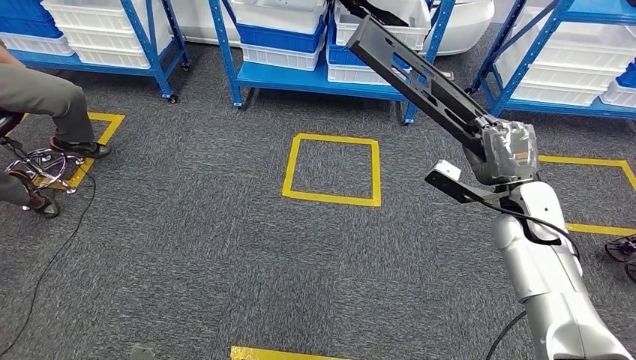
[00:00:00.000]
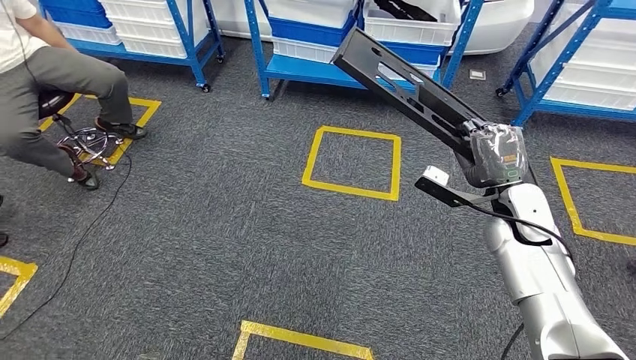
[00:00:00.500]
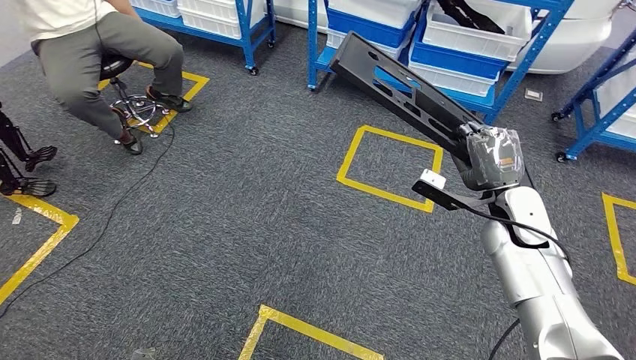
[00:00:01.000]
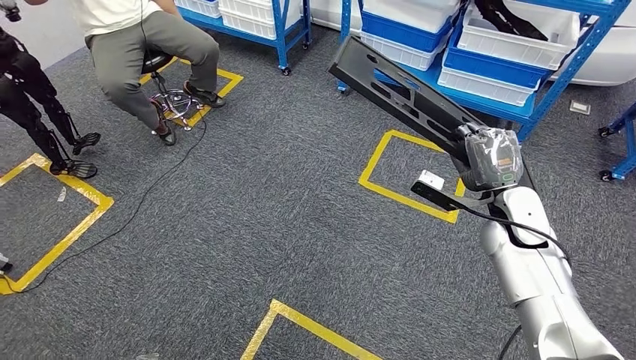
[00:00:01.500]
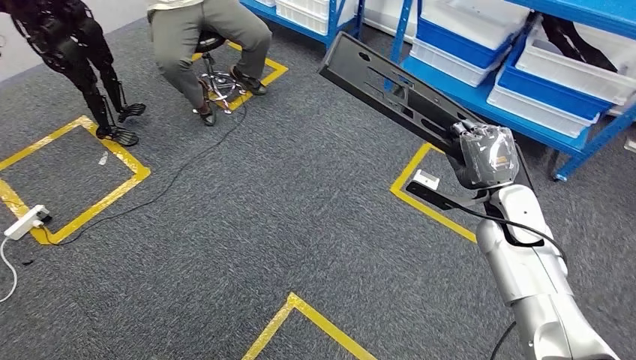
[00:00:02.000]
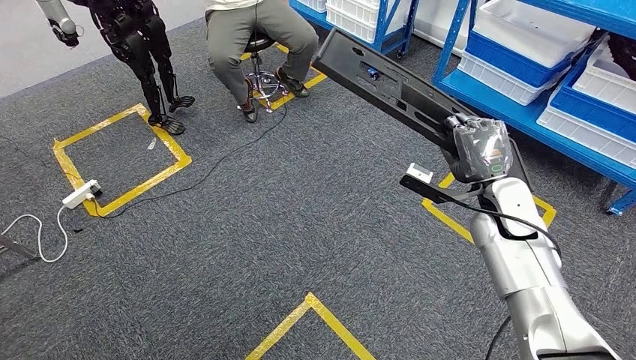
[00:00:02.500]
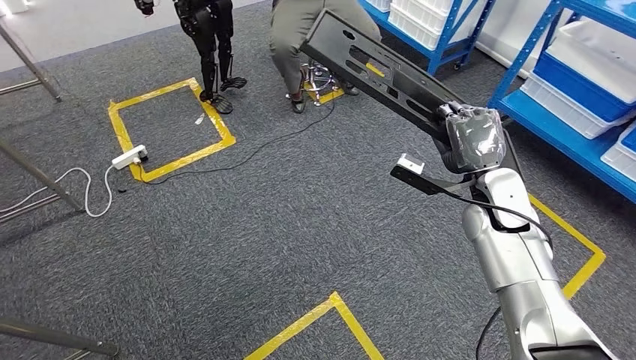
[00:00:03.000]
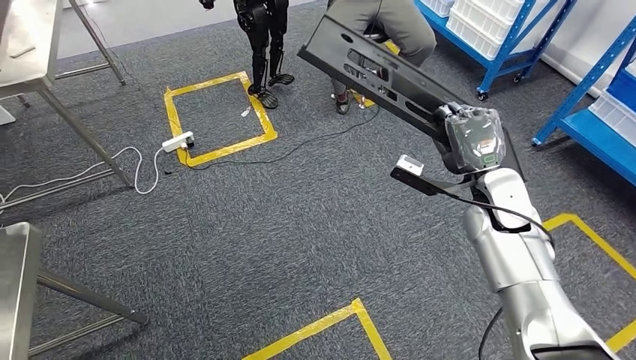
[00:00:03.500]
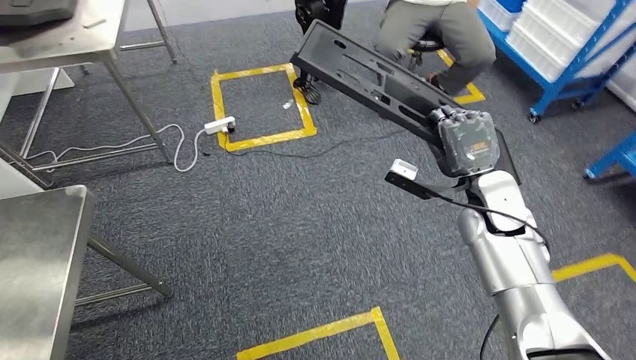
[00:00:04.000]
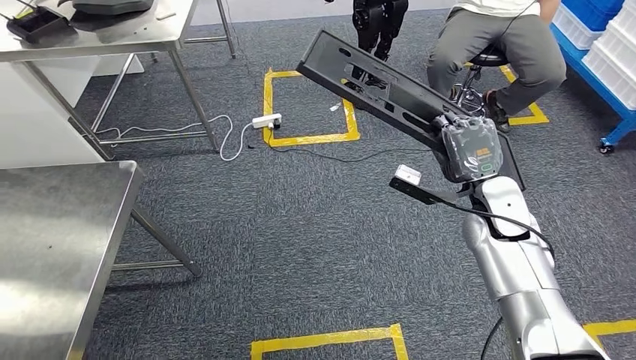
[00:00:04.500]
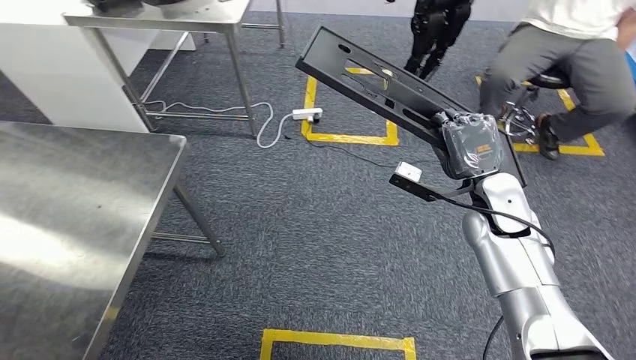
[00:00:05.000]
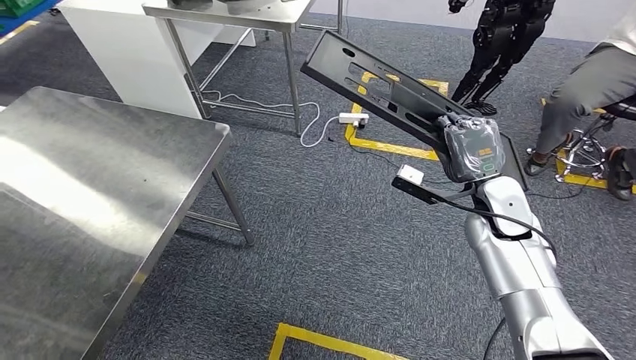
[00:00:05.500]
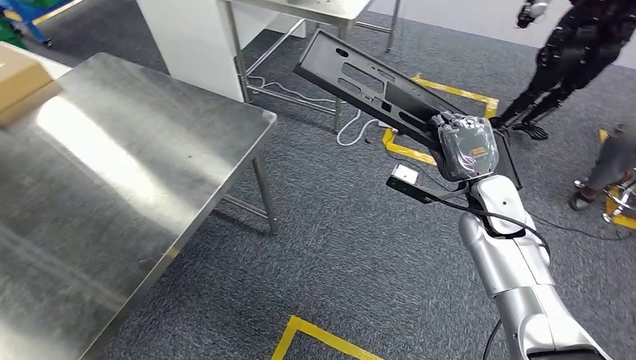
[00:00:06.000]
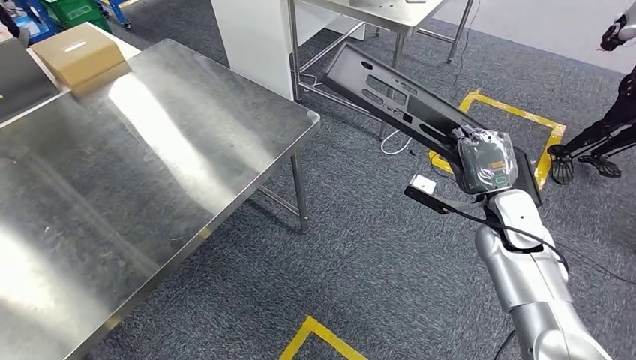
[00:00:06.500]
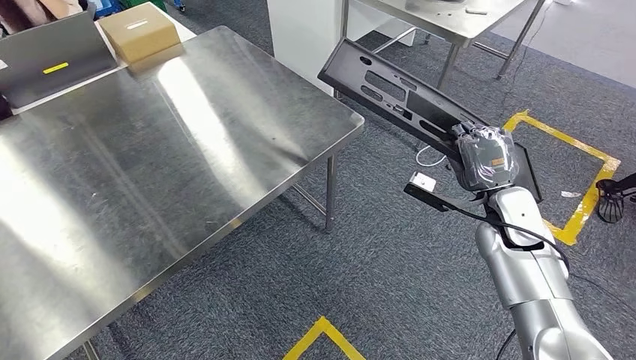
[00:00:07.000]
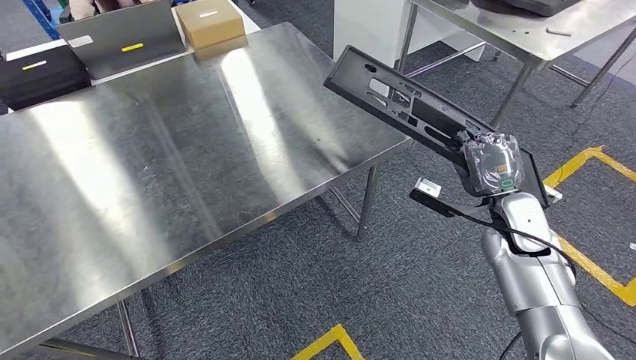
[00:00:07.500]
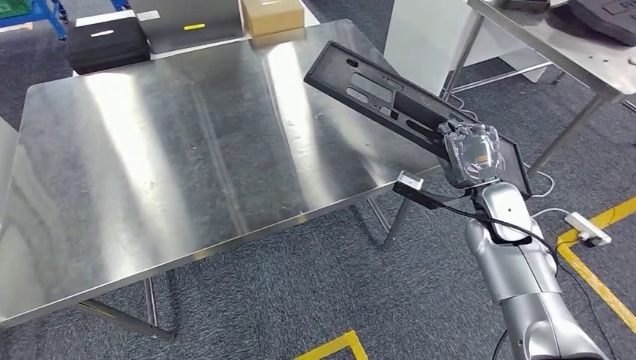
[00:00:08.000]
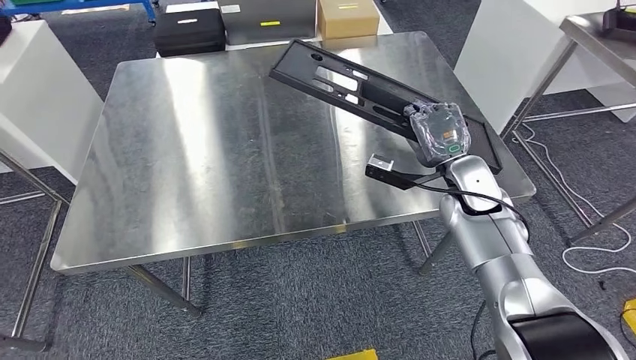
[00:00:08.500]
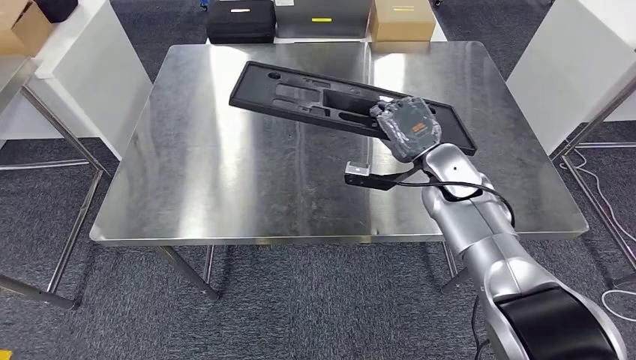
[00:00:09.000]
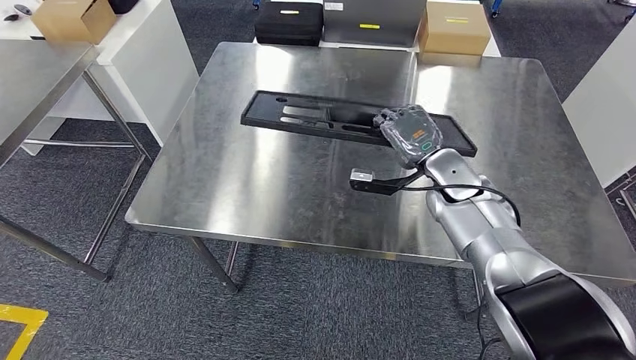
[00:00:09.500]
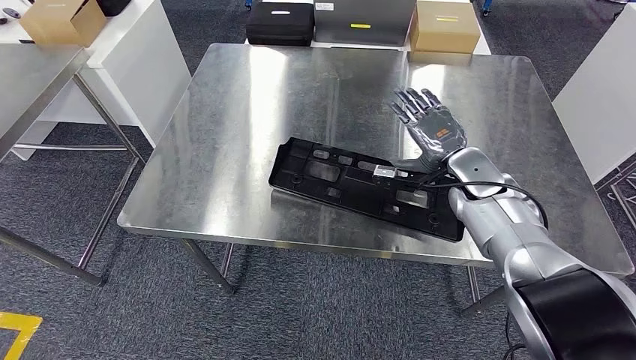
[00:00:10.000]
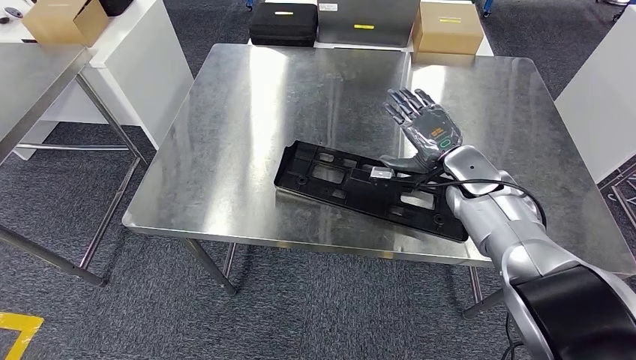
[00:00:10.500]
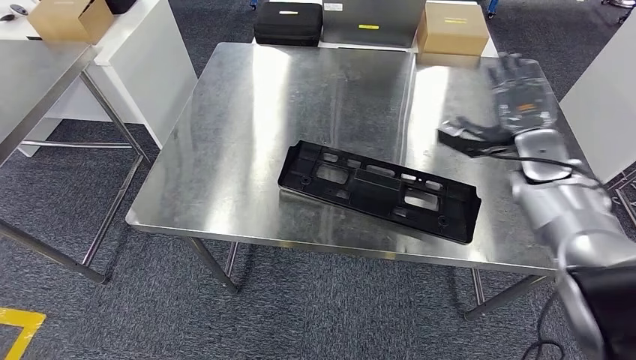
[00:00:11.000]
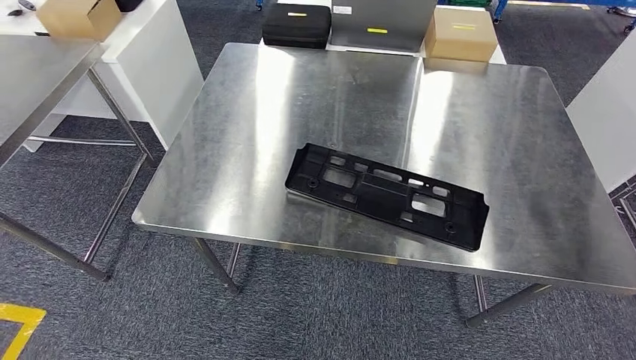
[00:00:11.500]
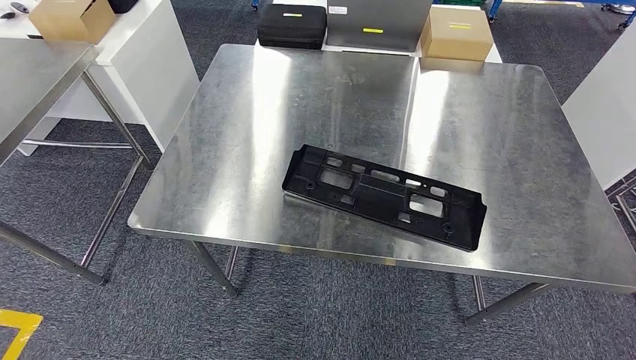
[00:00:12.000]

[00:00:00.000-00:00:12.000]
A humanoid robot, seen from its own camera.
Step, 00:00:00.000 to 00:00:06.500: Move the large material to the workbench.

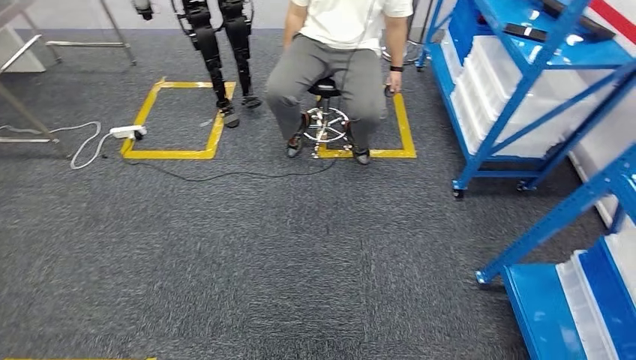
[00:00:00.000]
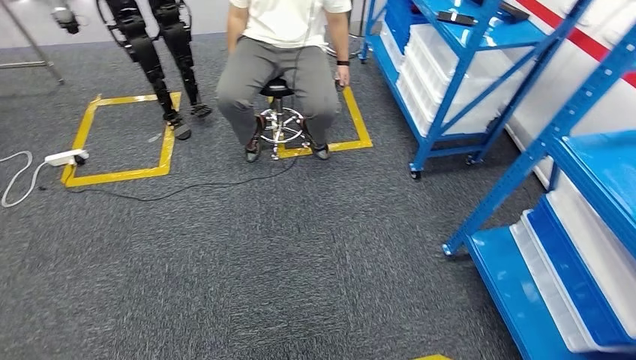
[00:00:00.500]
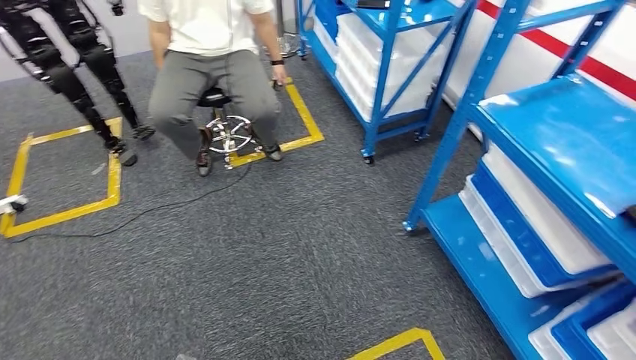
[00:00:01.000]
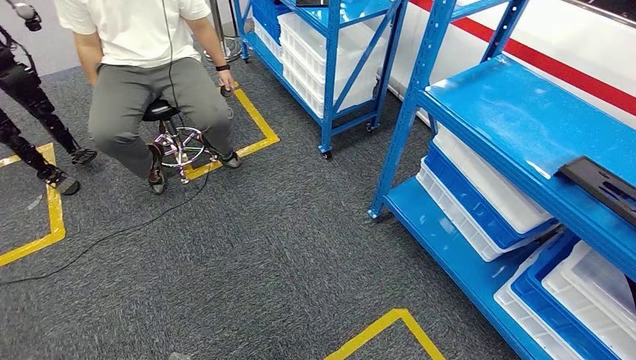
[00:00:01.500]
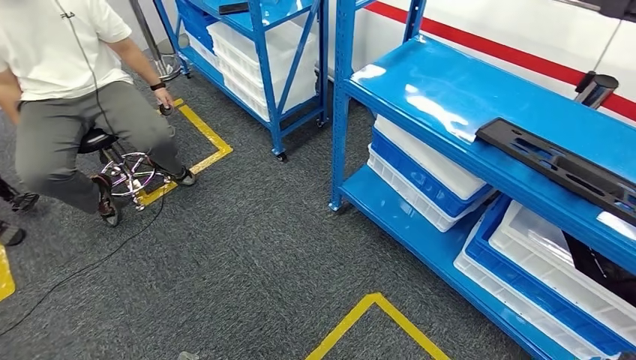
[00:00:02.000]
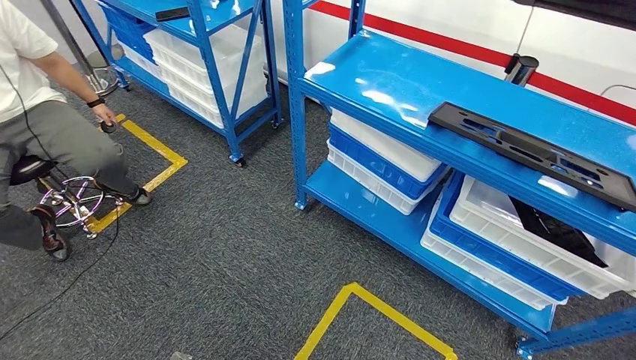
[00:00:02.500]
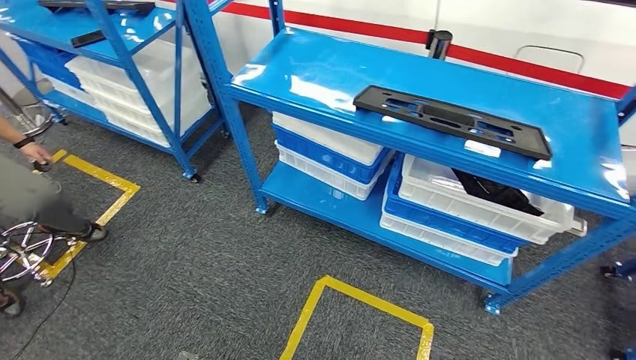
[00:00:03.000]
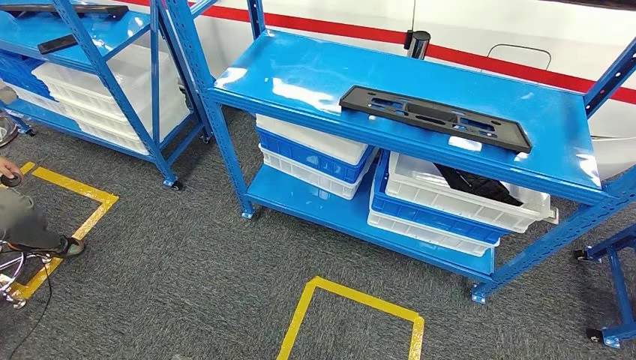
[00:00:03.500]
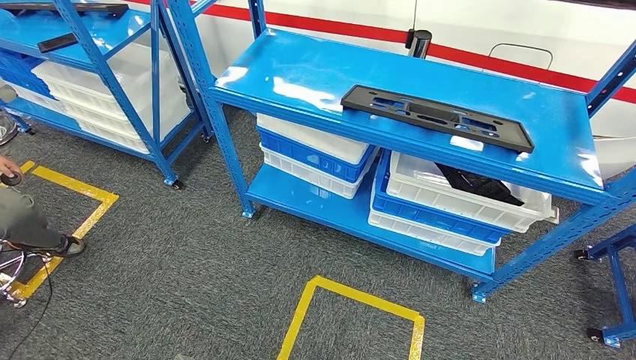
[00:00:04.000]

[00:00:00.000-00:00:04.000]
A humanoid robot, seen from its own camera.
Step, 00:00:00.000 to 00:00:04.000: Move to the initial position of the shelf.
